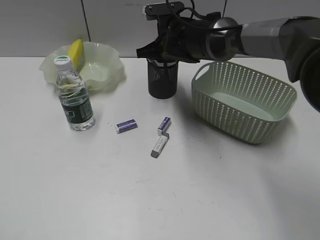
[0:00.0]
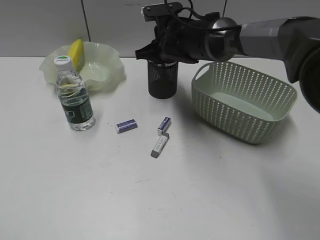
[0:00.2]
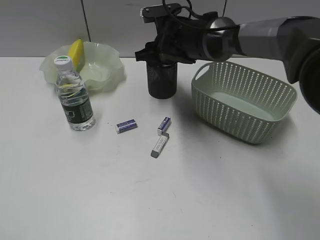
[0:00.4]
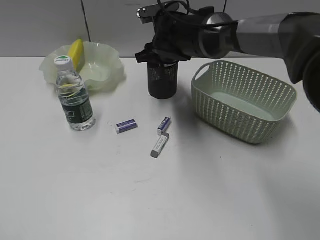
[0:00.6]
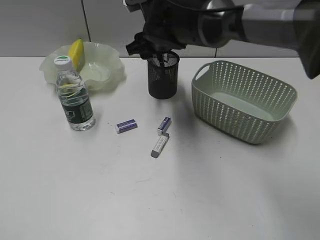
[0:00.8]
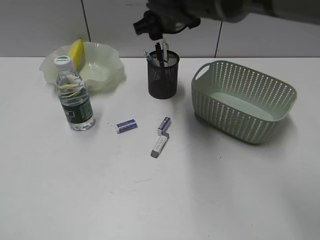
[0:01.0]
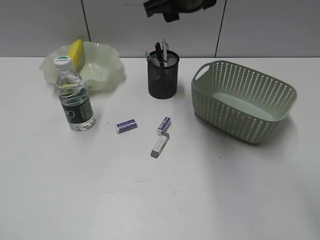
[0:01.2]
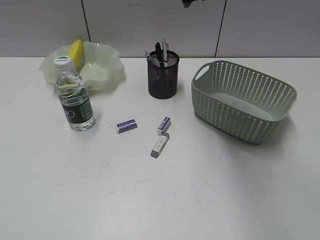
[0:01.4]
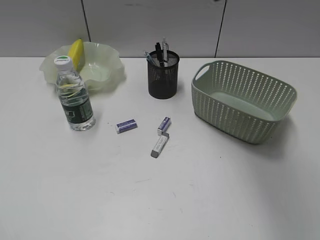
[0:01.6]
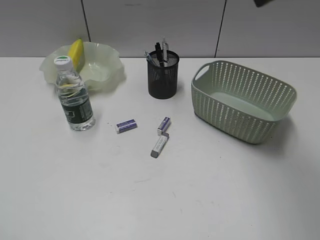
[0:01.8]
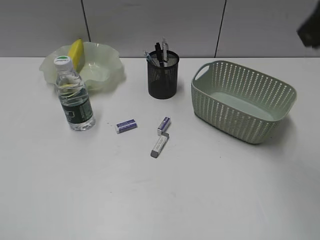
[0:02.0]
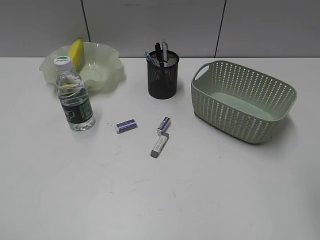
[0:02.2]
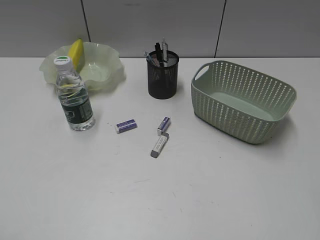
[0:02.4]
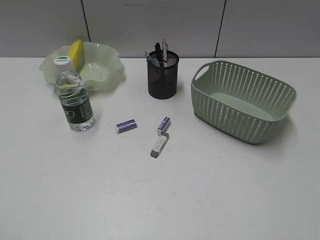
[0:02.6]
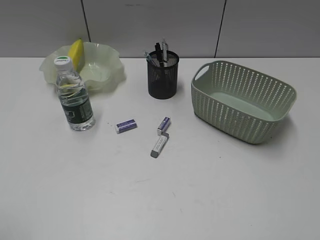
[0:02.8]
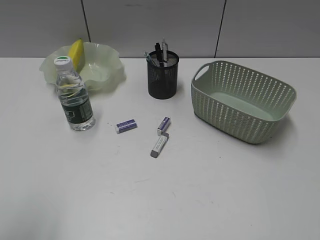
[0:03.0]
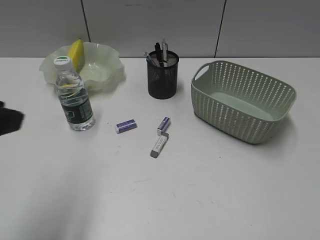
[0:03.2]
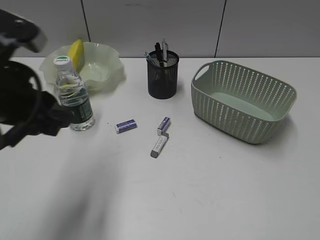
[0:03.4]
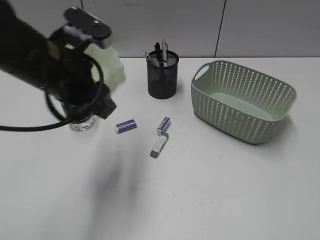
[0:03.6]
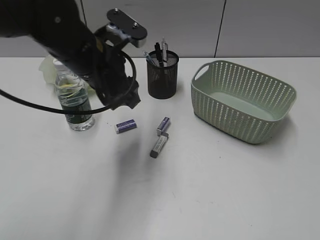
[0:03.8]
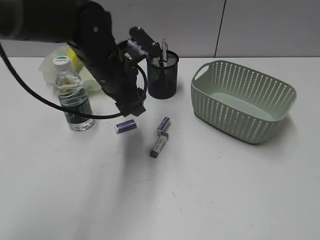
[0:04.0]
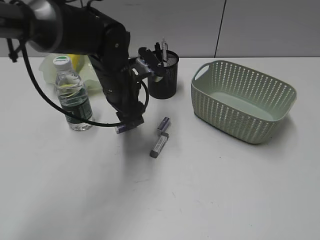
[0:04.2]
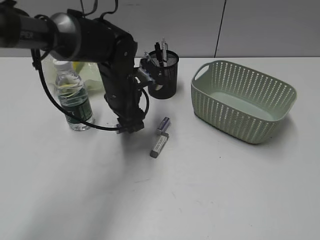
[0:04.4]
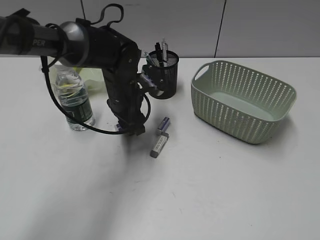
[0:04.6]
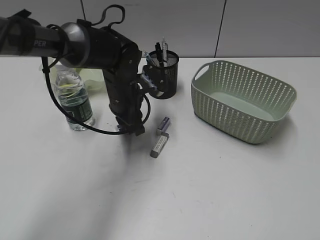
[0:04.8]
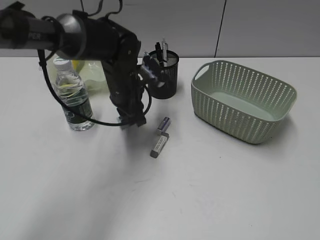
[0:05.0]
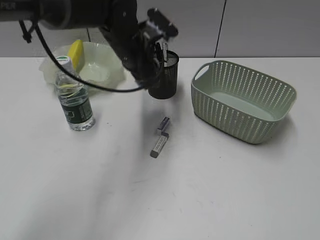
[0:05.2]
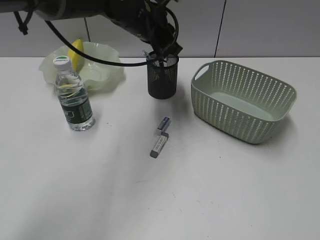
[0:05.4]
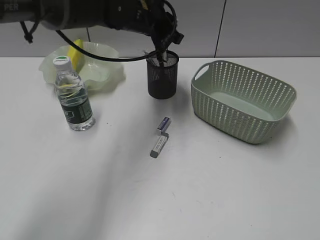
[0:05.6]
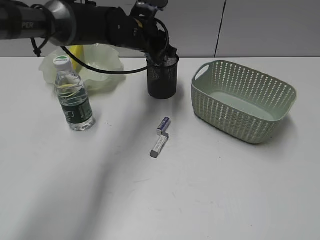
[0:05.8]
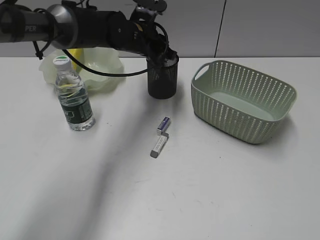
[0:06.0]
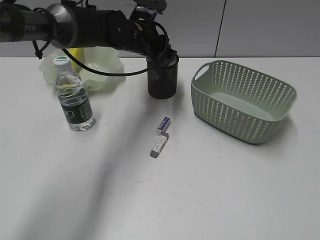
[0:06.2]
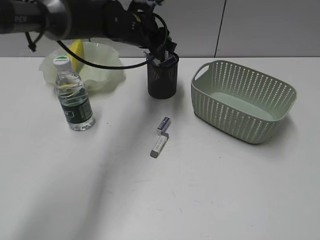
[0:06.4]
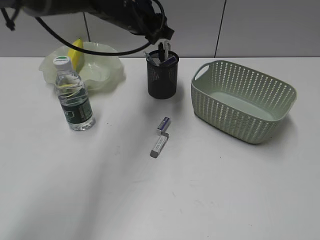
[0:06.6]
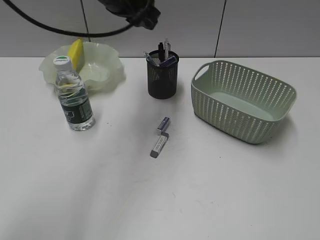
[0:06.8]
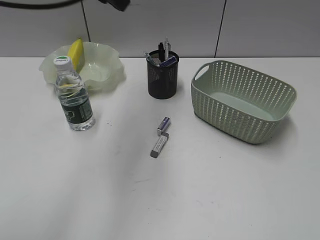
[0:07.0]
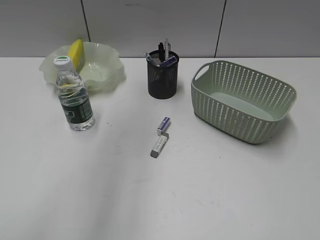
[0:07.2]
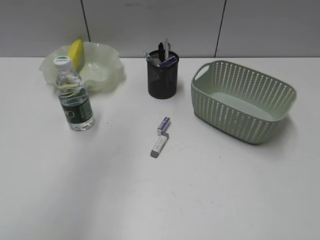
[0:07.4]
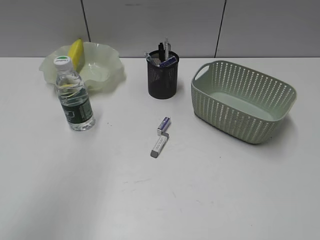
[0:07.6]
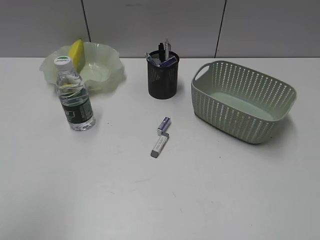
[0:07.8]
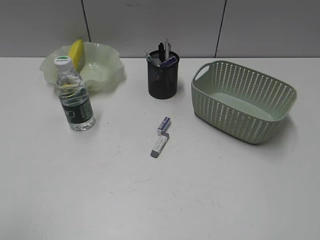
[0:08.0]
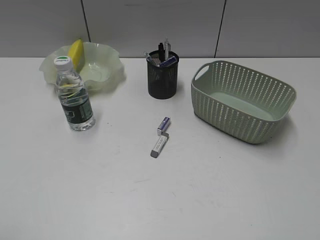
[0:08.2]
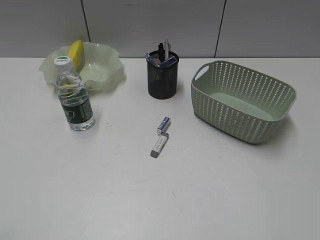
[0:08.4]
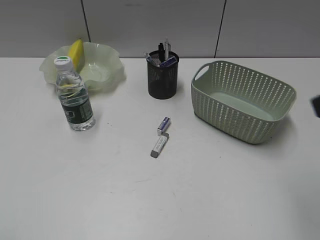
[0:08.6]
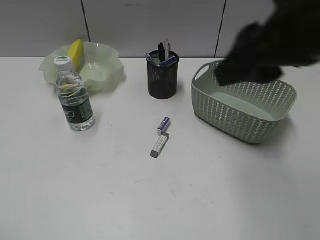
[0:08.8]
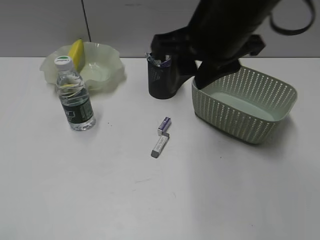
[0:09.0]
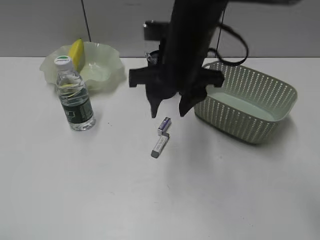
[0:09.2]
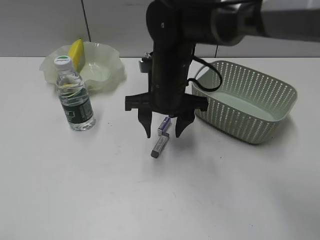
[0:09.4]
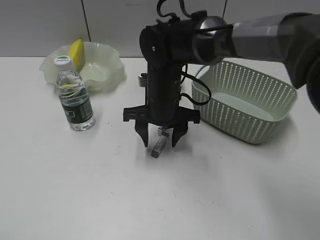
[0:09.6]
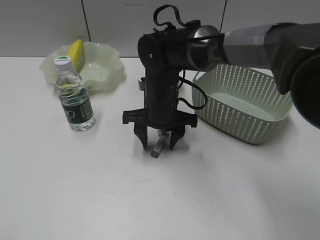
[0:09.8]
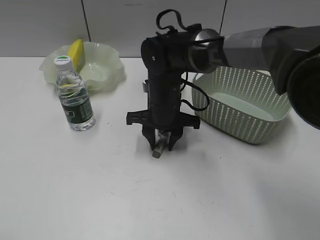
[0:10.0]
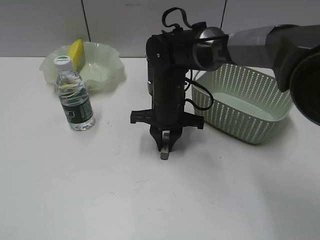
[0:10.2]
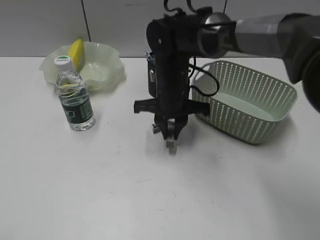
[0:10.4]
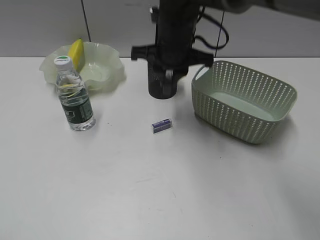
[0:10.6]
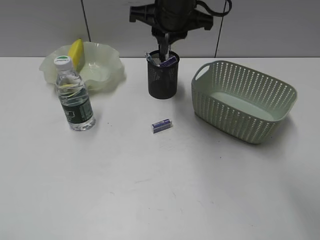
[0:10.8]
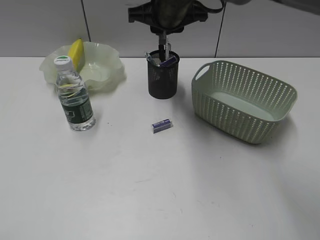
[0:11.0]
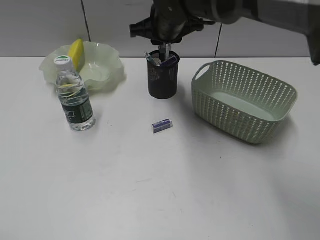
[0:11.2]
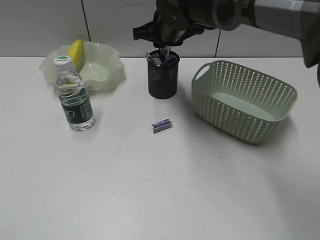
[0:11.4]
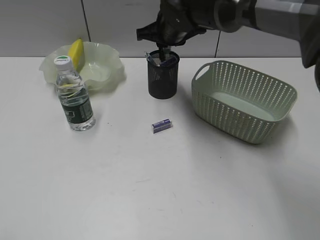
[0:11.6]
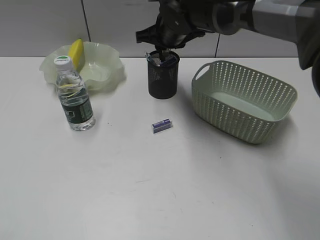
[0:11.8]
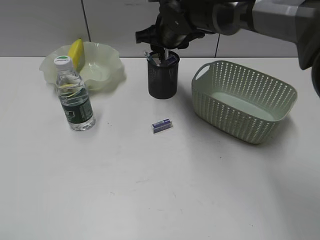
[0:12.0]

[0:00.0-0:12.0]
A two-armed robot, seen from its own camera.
Step, 0.8 to 4.8 s: Grasp the eraser with left gripper.
Step, 5.0 to 6.4 s: Place the eraser in pen holder with left gripper.
Step, 6.6 to 10.0 s: Grasp the eraser with right gripper.
Step, 10.2 to 12.0 s: Place the eraser in pen holder with right gripper.
0.0 to 1.6 s: The right gripper travels upward and backward by approximately 25 cm, and opens, then closes once more.
1.6 to 3.0 s: The left gripper is displaced forward by some 5 cm, while the right gripper is displaced backward and to the right by roughly 40 cm.
3.0 to 4.4 s: The left gripper heads forward, to the right and downward, covering roughly 40 cm.
4.4 to 6.0 s: The left gripper goes approximately 10 cm forward, and closes.
6.0 to 7.6 s: The left gripper shifts some 40 cm backward, upward and to the left, and opens up.
7.6 to 9.0 s: The left gripper moves backward, downward and to the left, approximately 25 cm. Meanwhile the right gripper is displaced forward and to the left by some 35 cm, and opens.
9.0 to 10.4 s: The right gripper travels downward and forward by some 20 cm, and closes its fingers.
10.4 to 12.0 s: The right gripper is displaced forward and upward by some 10 cm, and opens its fingers.

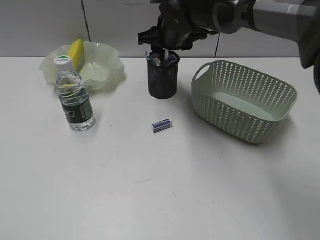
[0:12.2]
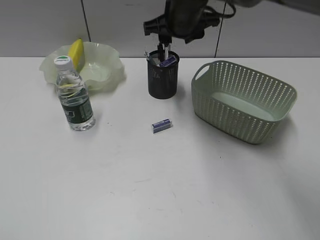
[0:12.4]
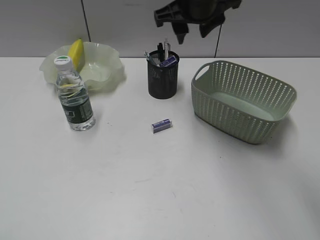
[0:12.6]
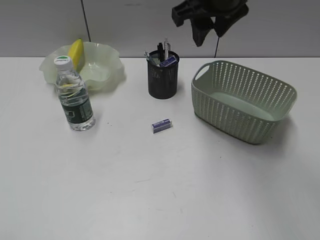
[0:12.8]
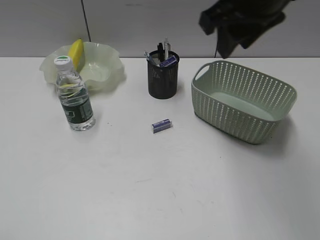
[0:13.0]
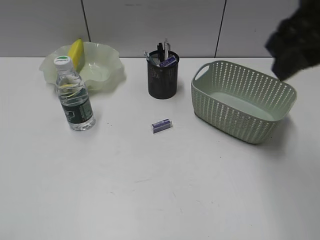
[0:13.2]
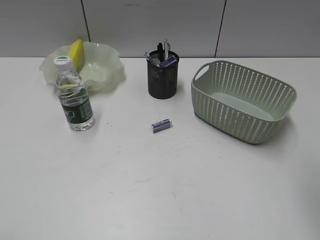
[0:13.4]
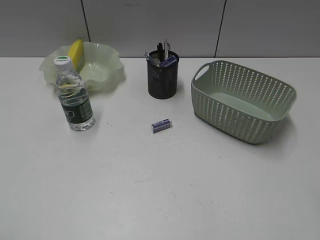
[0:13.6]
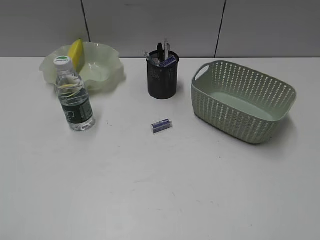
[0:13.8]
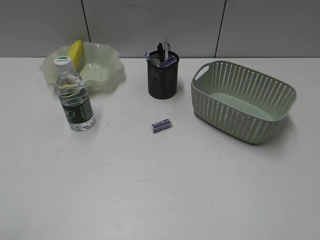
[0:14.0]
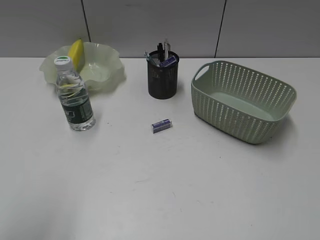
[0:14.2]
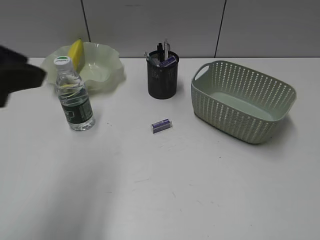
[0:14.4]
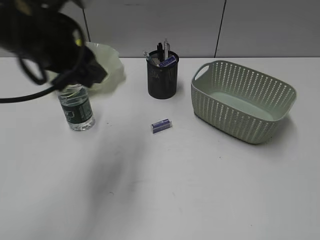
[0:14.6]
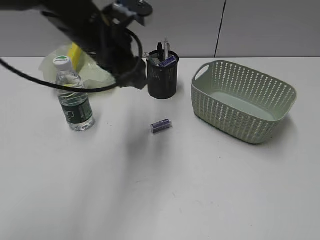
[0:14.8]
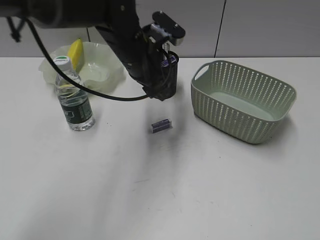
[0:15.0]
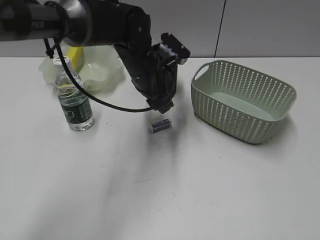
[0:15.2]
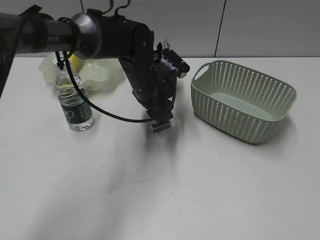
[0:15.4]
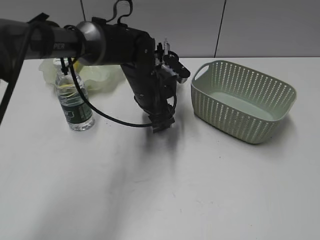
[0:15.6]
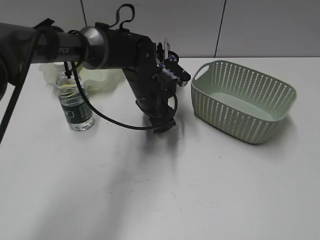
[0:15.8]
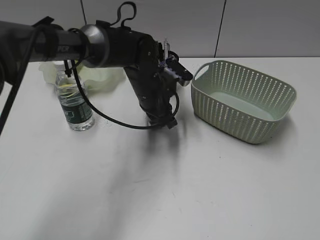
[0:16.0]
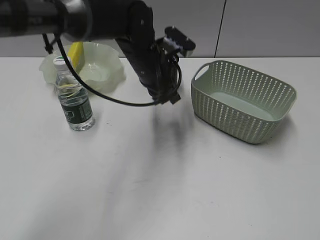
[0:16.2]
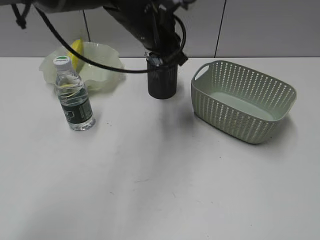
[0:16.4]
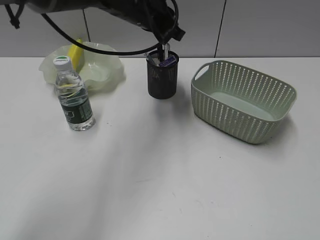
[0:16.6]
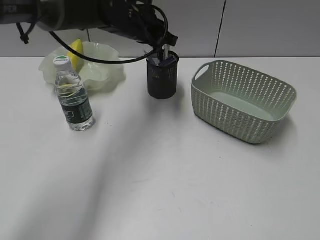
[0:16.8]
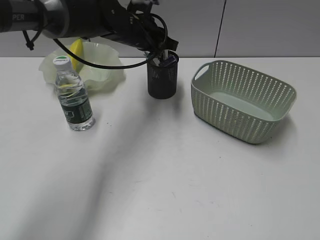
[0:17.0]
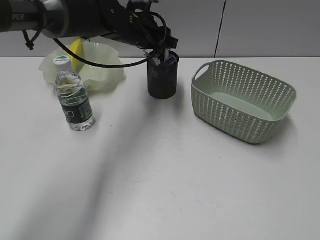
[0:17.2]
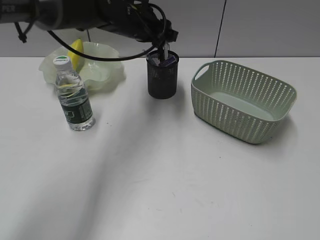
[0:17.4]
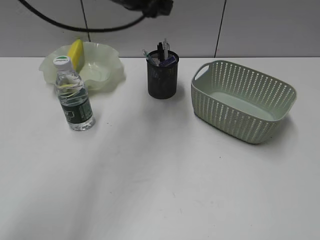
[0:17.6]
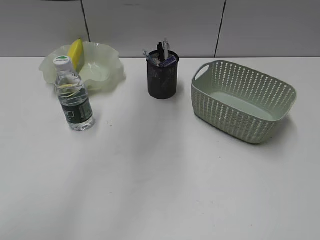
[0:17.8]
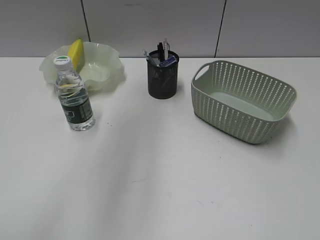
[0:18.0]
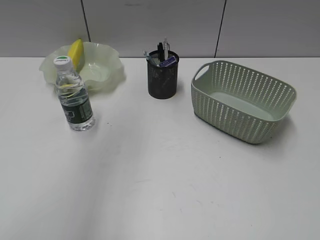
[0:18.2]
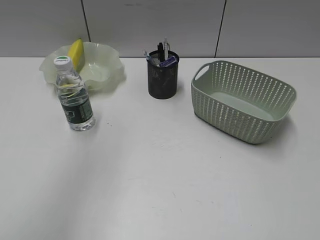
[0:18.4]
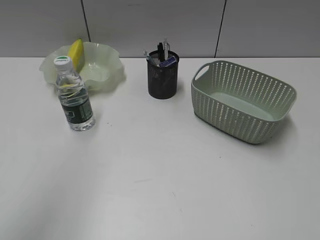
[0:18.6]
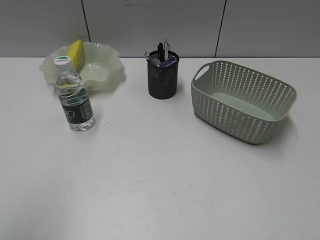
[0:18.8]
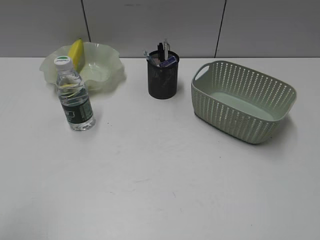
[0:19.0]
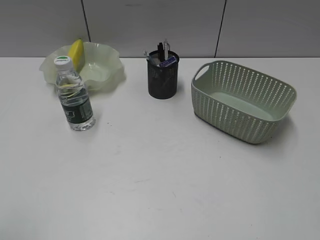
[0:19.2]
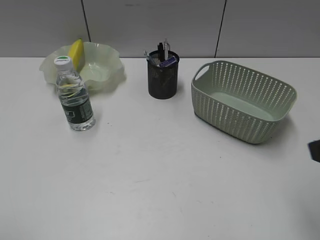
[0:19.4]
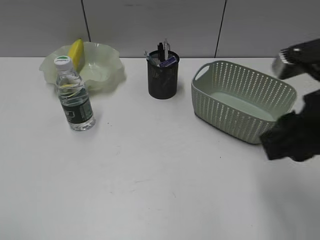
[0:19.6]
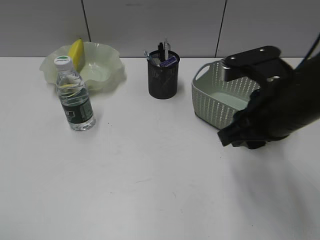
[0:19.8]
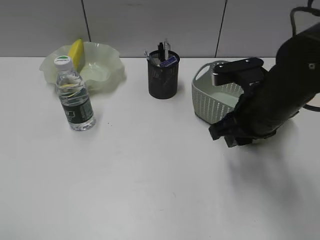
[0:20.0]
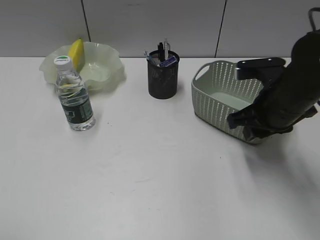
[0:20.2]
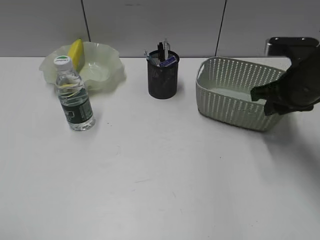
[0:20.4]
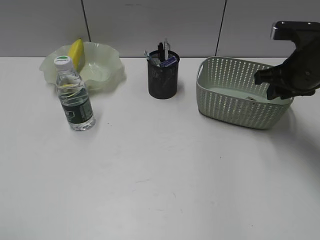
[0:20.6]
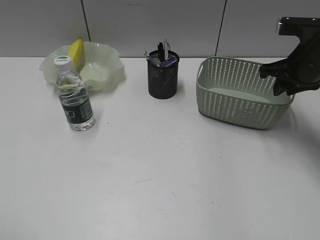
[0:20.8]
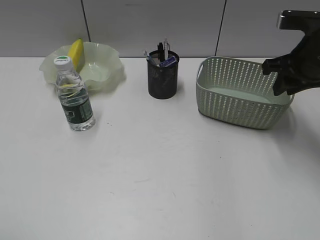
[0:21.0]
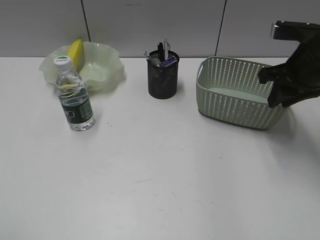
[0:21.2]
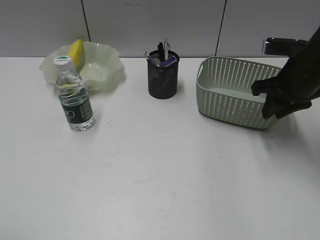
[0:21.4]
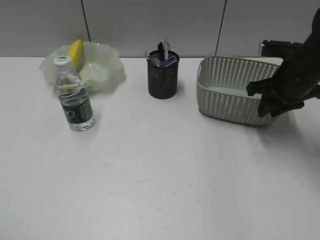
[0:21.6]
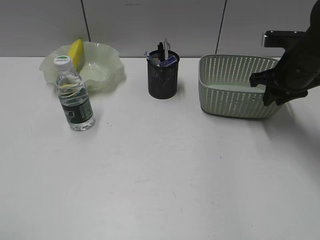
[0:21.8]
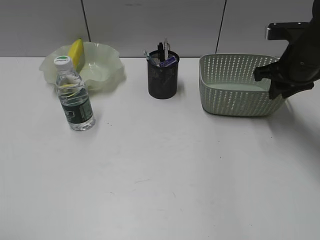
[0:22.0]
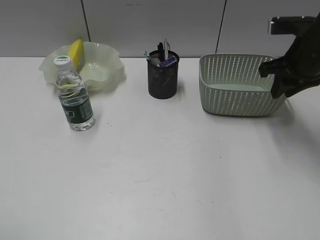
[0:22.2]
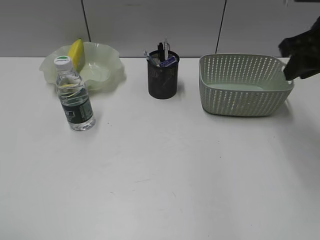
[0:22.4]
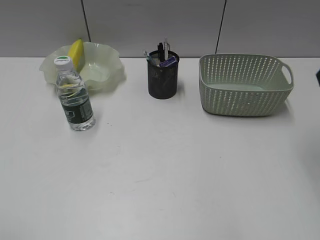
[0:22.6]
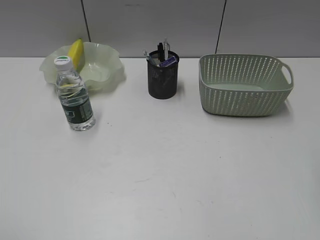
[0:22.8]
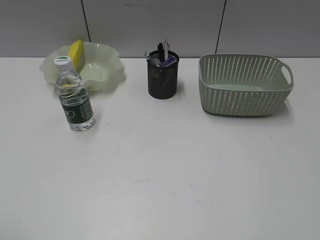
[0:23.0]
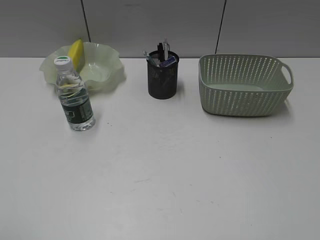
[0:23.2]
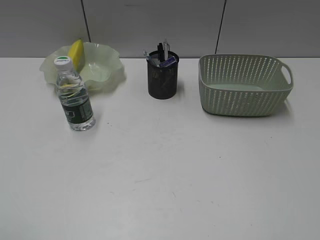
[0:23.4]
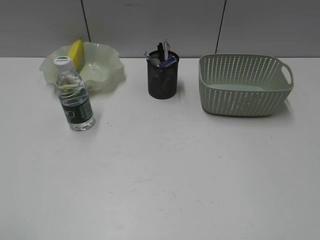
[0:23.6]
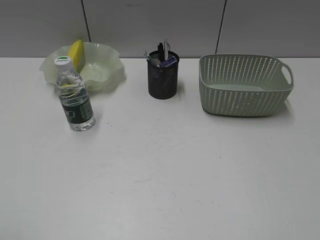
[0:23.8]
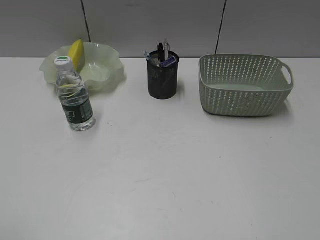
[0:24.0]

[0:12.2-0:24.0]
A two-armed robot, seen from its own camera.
Step, 12.2 to 16.0 s: Grasp the eraser with left gripper.
Step, 16.2 to 17.2 s: Place the eraser in pen holder with left gripper.
12.2 to 13.6 s: The right gripper travels backward and to the right by roughly 40 cm, and closes its fingers.
13.6 to 15.2 s: The left gripper travels forward and to the right by approximately 50 cm. Meanwhile the right gripper moves backward and to the right, roughly 10 cm.
15.2 to 16.6 s: The left gripper travels upward by some 10 cm, and closes up.
16.6 to 18.2 s: The left gripper travels upward, backward and to the left by roughly 30 cm, and opens up.
18.2 to 19.6 s: The left gripper heads backward, downward and to the left, covering some 35 cm, while the right gripper moves forward and to the left, roughly 20 cm.
19.6 to 21.0 s: The right gripper travels forward by approximately 20 cm.
21.0 to 22.6 s: The right gripper heads backward and upward, covering about 15 cm.
